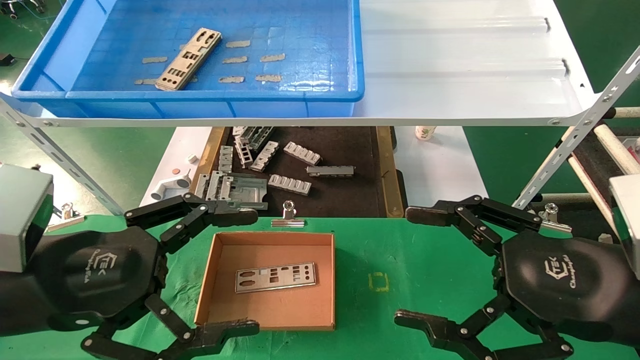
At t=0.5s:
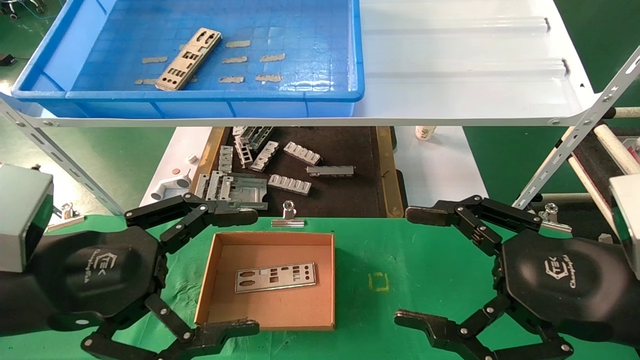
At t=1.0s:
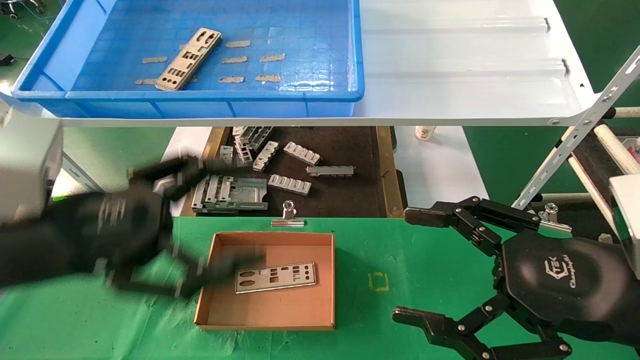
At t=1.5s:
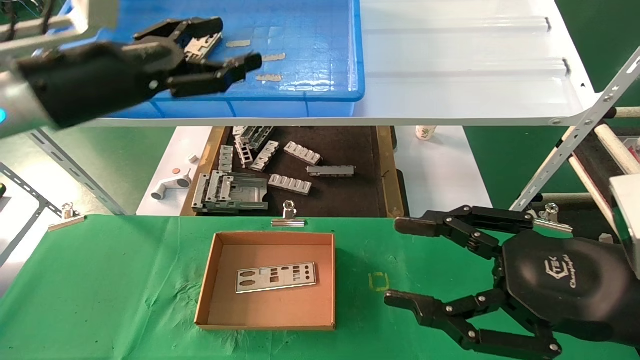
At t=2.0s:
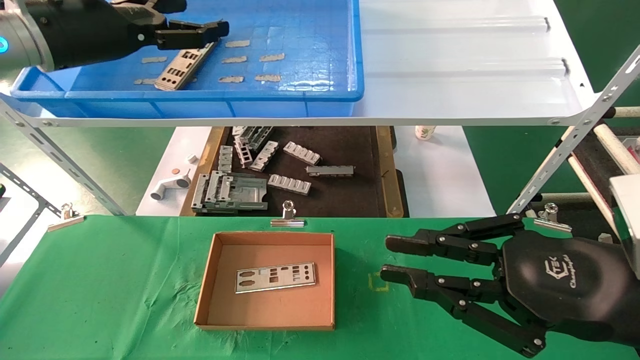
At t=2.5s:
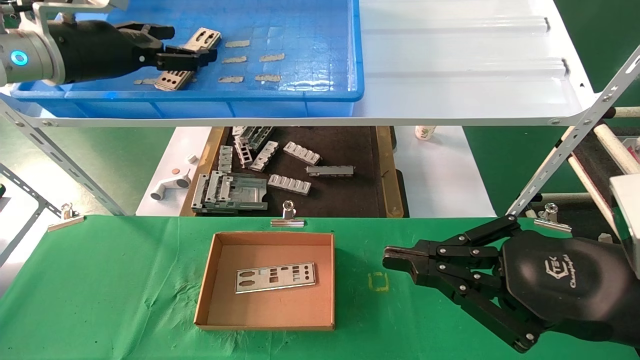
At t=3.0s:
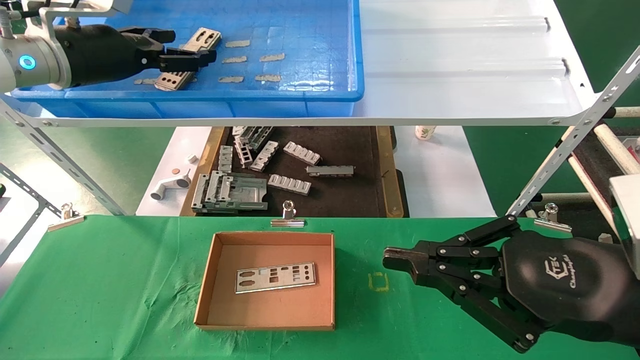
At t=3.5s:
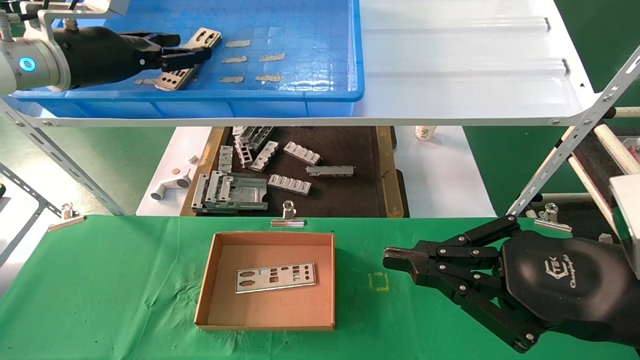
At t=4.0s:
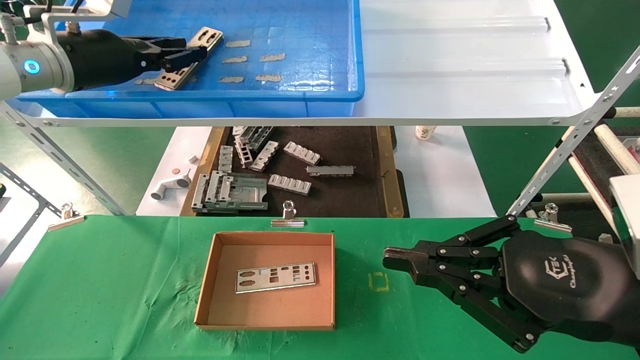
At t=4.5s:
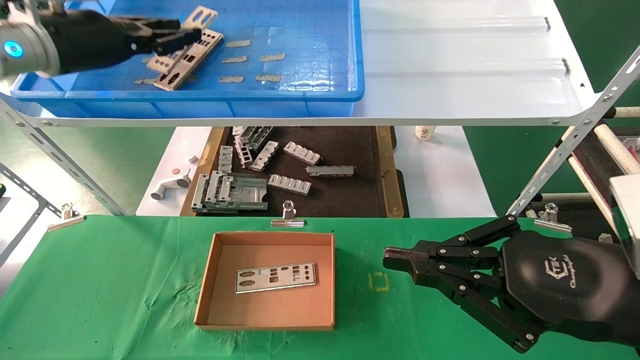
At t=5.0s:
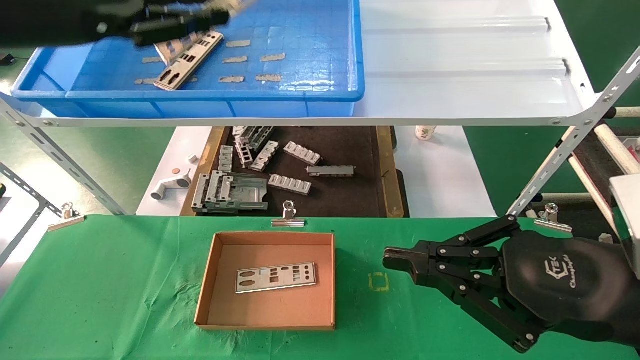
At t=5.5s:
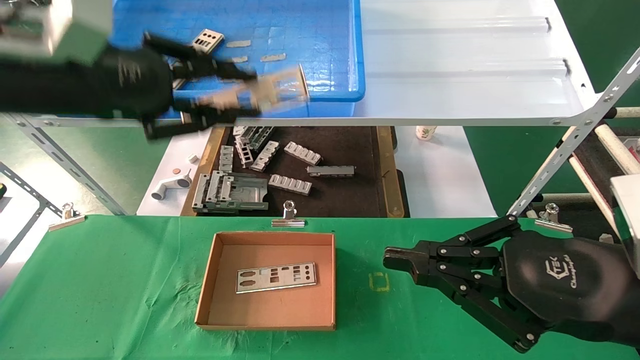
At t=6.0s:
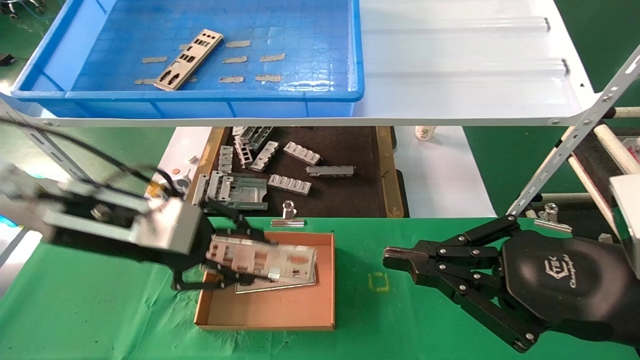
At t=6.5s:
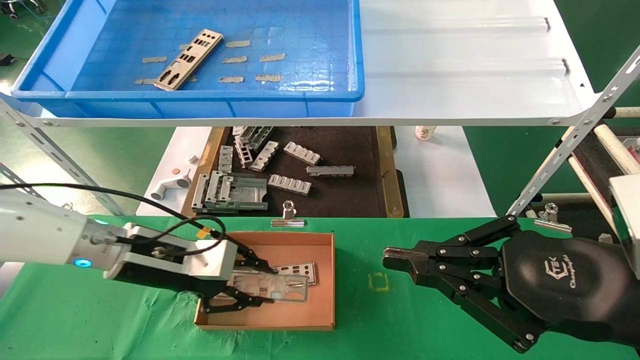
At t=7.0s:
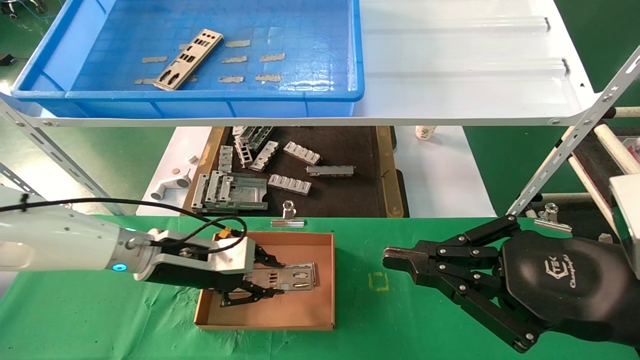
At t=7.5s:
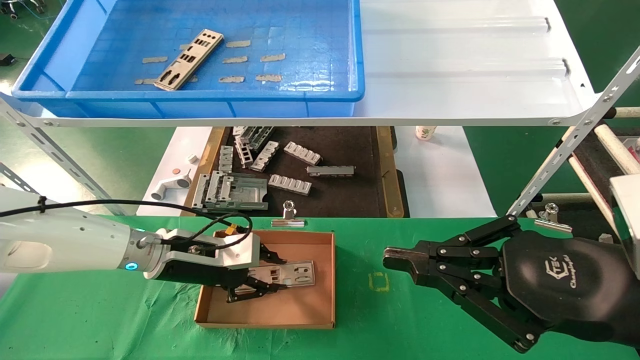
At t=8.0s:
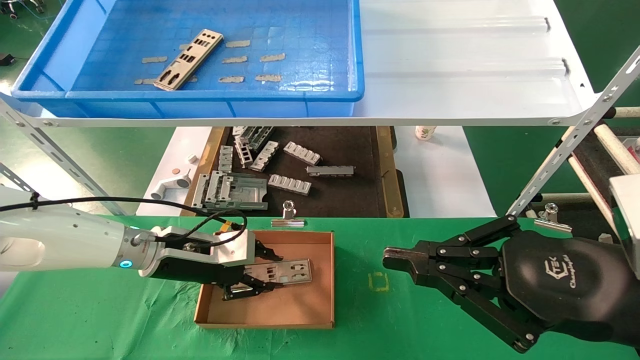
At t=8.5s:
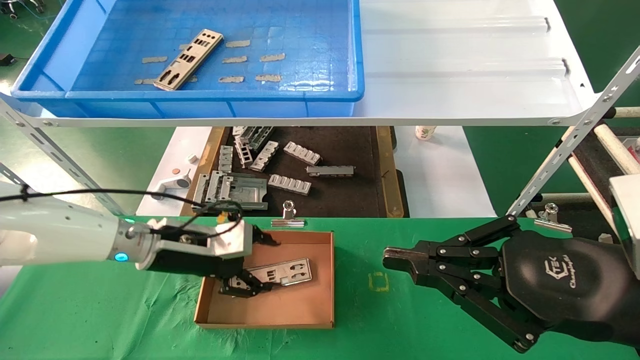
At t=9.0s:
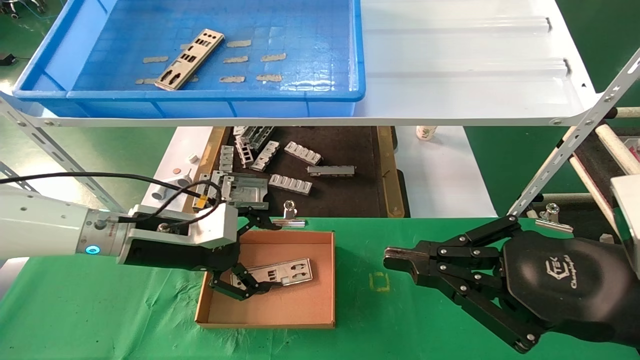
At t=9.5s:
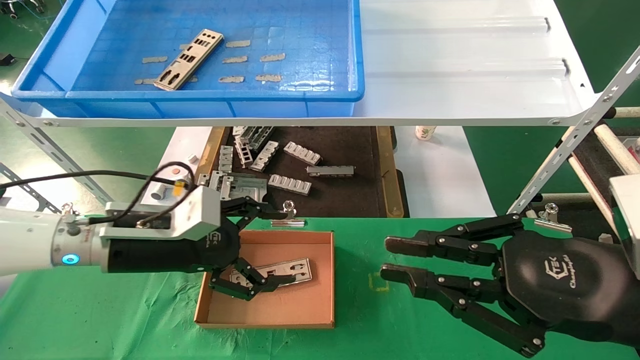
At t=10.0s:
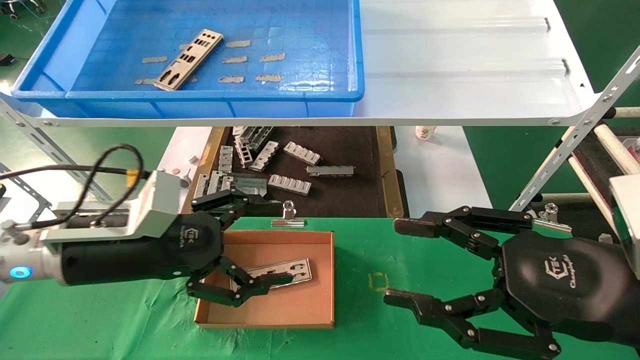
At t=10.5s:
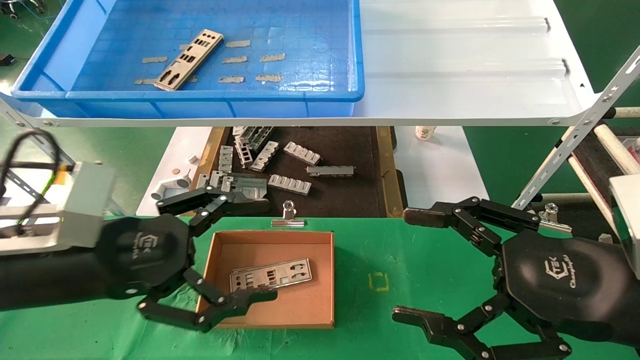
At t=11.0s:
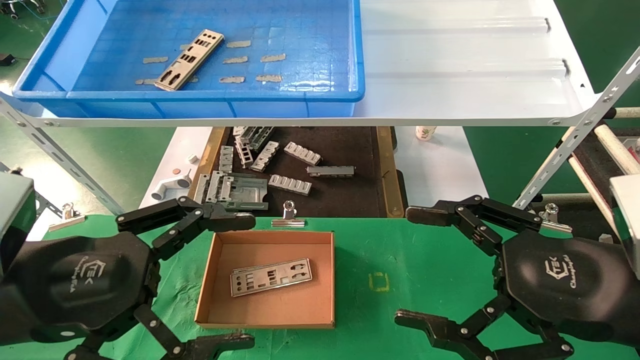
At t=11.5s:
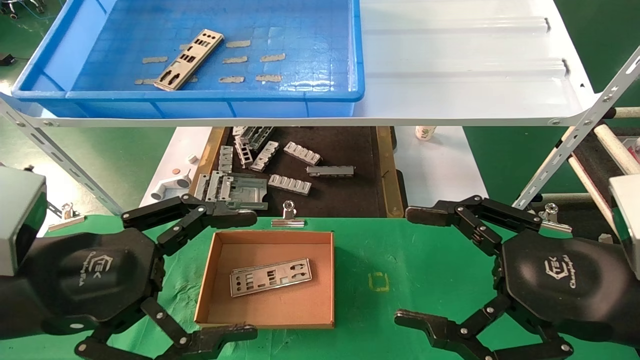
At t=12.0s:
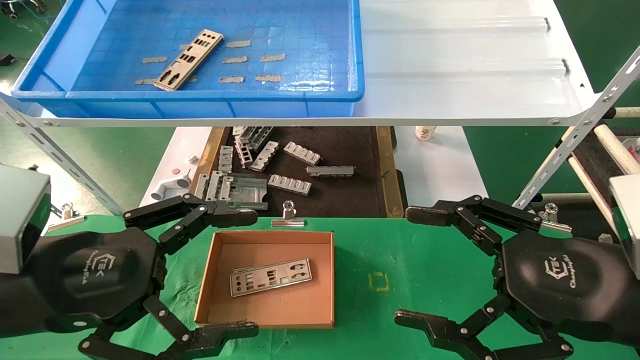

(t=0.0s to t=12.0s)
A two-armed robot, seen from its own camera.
Task of the whole recording: pick up the parts on the tray and put them in the cardboard box.
Step, t=1.5s - t=4.0s: Pick up the IO bracket from the container box.
Step, t=4.5s - t=8.0s: Place the IO bracket into the ingredient slot.
t=0.0s - t=2.0s: The left gripper heads forward and upward, covering roughly 25 cm. The right gripper closes its fingers.
t=2.0s - t=4.0s: The left gripper closes its fingers.
t=4.0s - t=6.0s: The left gripper travels downward, backward and to the right by roughly 20 cm.
t=6.0s - t=8.0s: The left gripper is displaced downward and forward by about 15 cm.
t=8.0s - t=10.0s: The right gripper opens up. The left gripper moves backward and upward, about 15 cm, and opens its fingers.
t=10.0s - t=12.0s: The left gripper moves backward, roughly 10 cm. Meanwhile the right gripper opens up.

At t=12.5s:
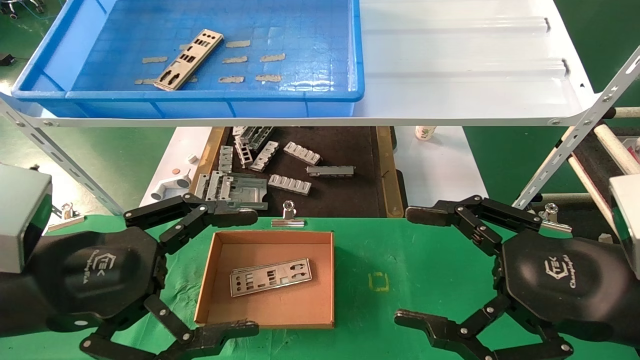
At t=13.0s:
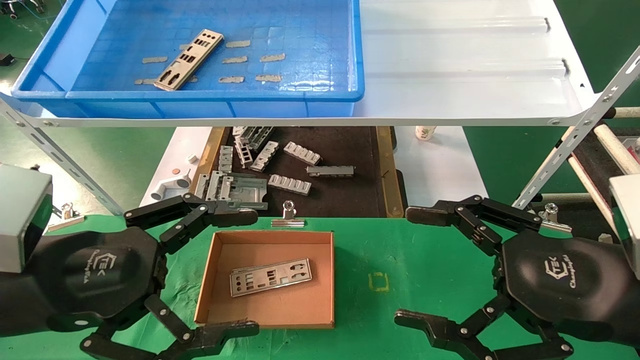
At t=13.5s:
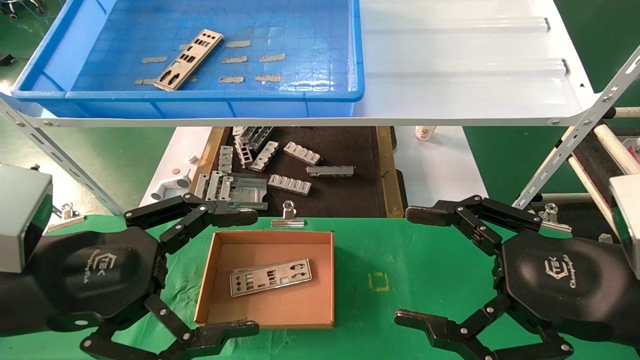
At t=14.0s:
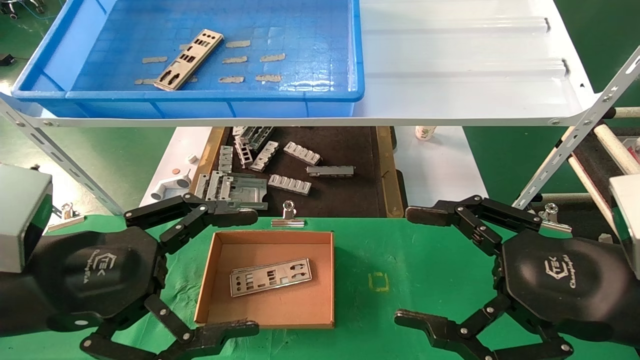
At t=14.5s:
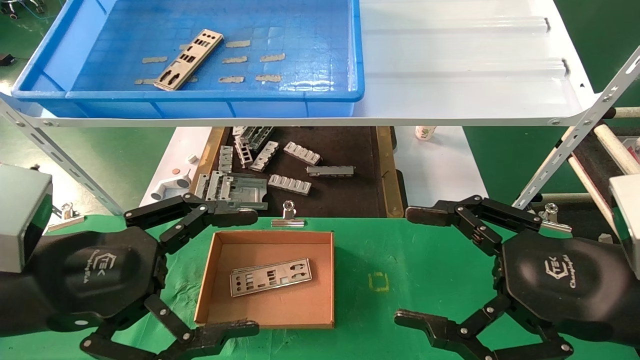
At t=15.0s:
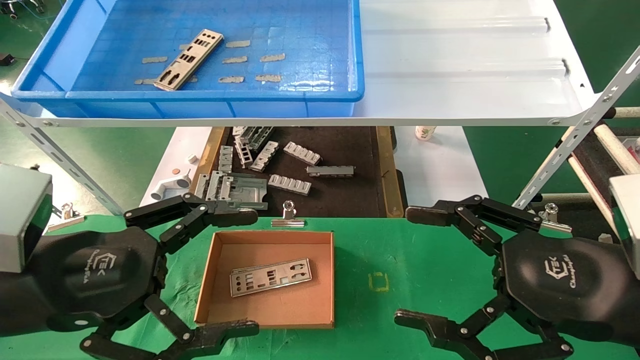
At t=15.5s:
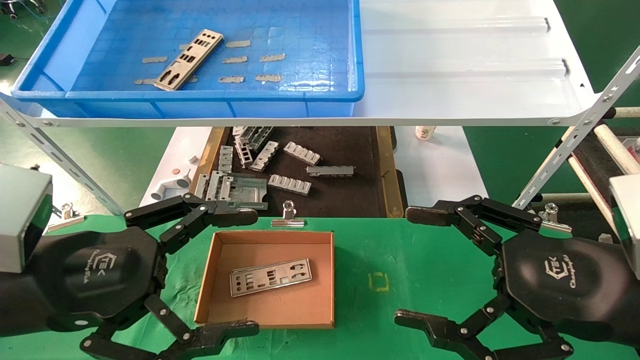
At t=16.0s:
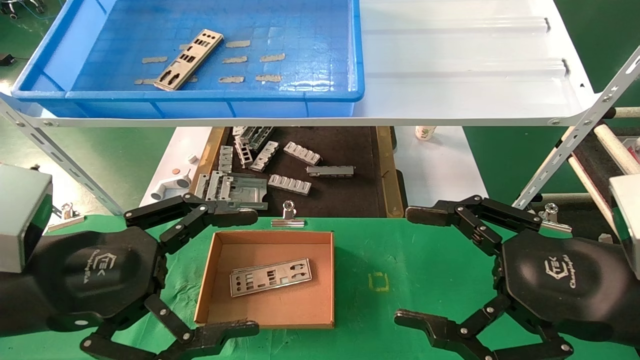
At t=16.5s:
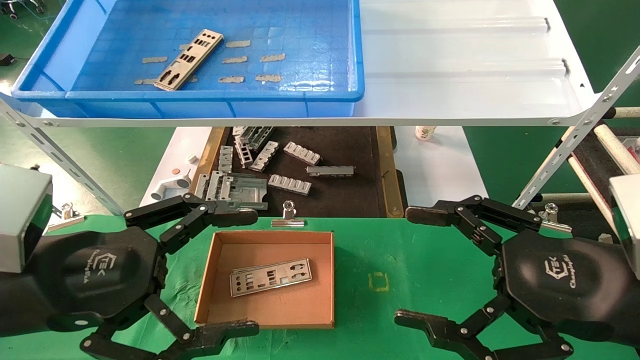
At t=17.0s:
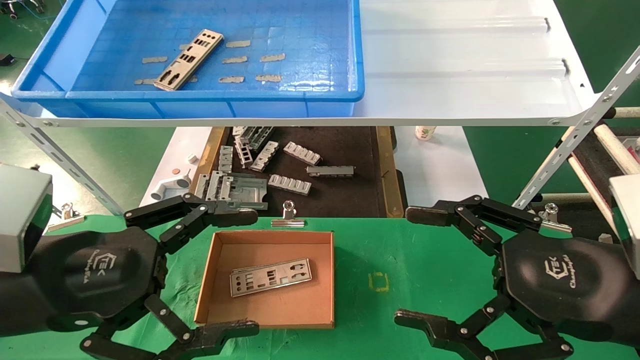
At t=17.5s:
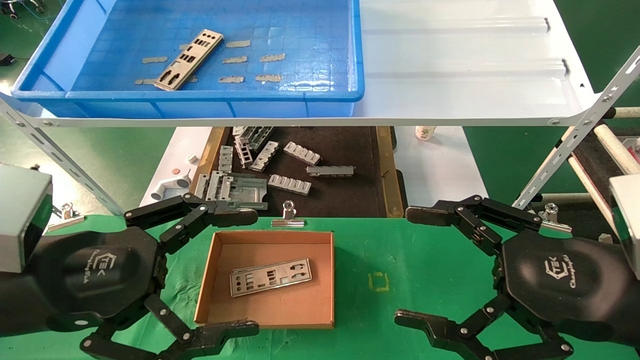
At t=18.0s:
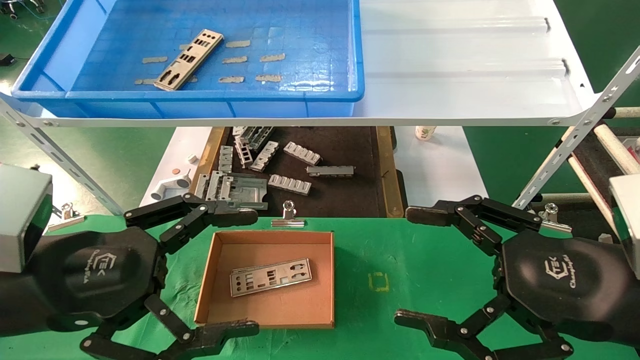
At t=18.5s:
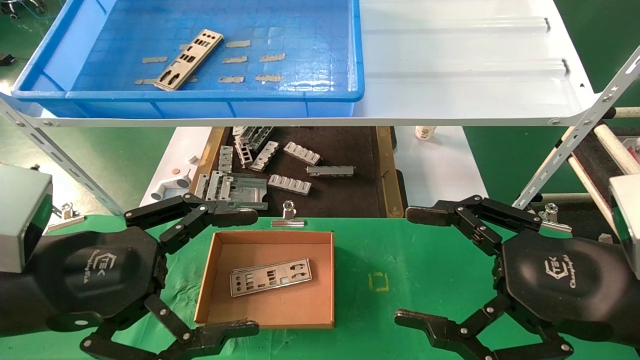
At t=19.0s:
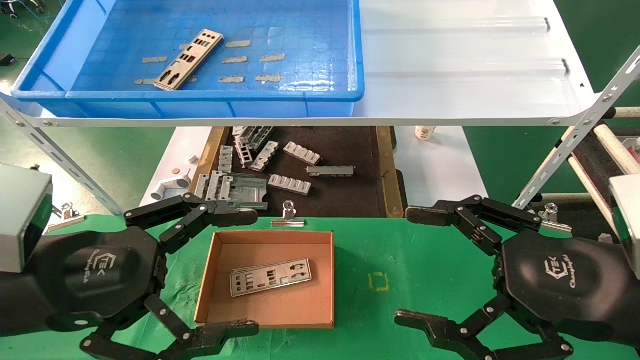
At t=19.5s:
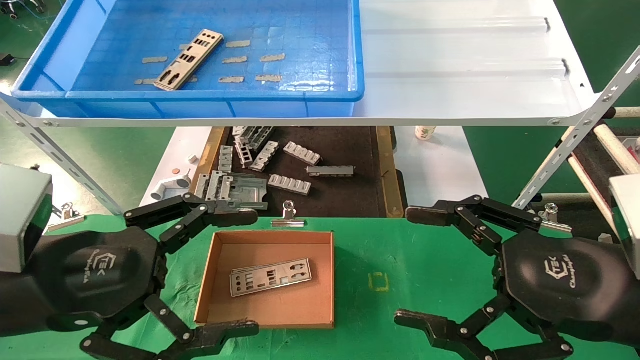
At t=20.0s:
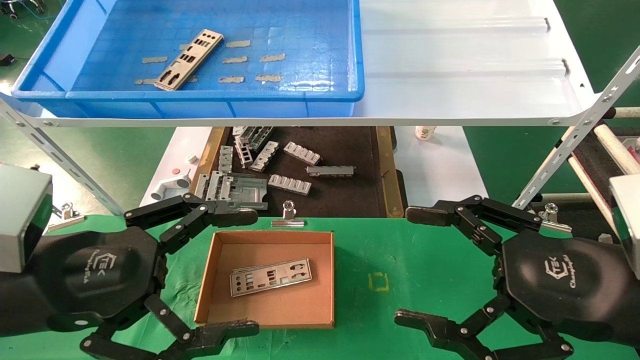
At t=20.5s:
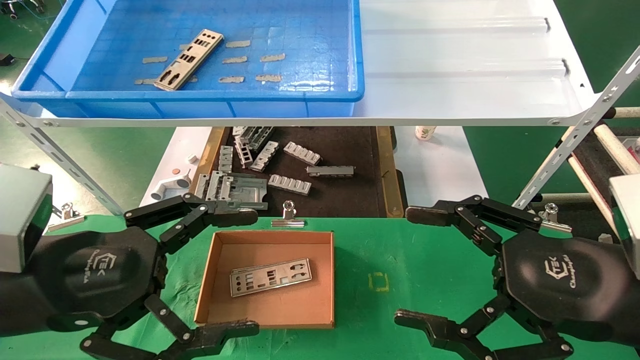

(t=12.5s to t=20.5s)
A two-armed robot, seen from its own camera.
Task of the whole recording: pick up the parts on the tray and put them in the cardboard box.
t=12.5s - t=20.5s: The two grippers keep their place.
